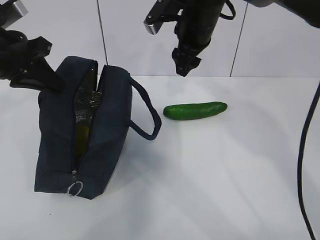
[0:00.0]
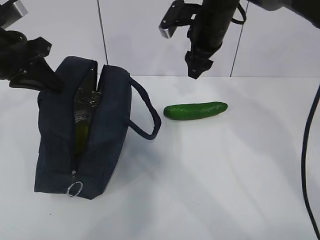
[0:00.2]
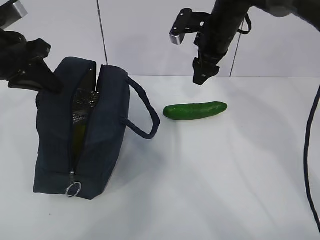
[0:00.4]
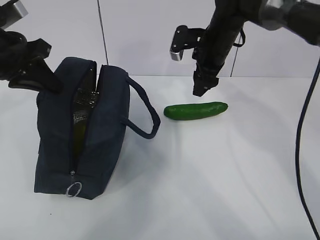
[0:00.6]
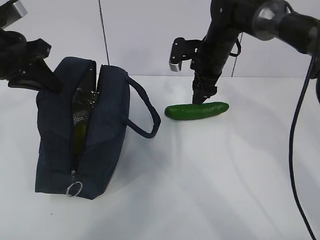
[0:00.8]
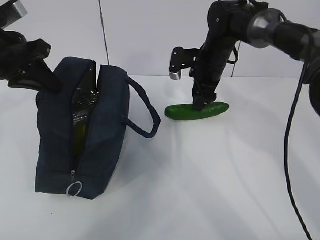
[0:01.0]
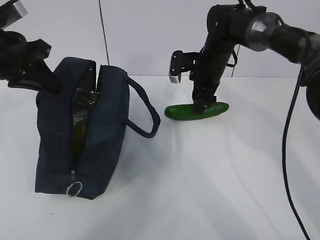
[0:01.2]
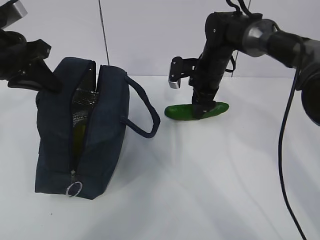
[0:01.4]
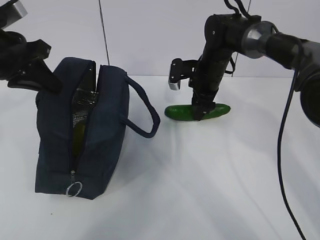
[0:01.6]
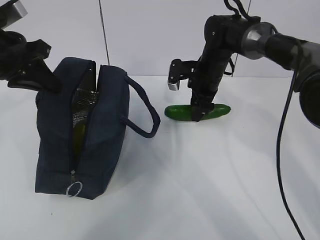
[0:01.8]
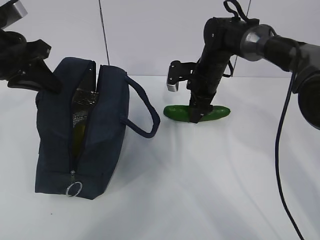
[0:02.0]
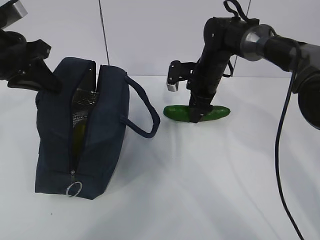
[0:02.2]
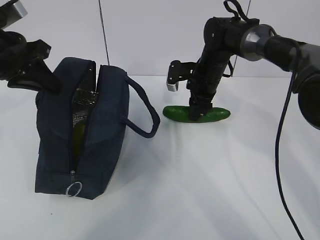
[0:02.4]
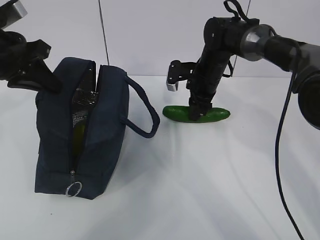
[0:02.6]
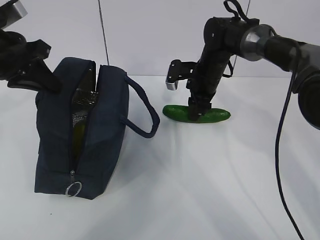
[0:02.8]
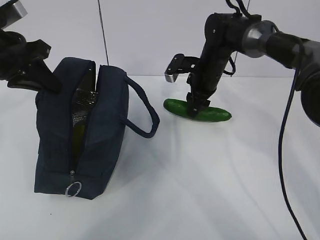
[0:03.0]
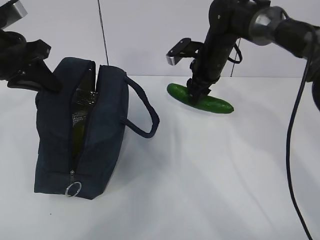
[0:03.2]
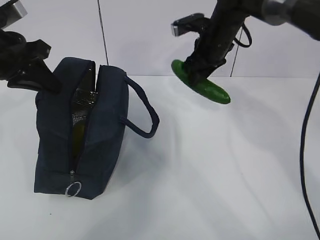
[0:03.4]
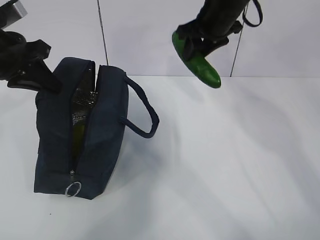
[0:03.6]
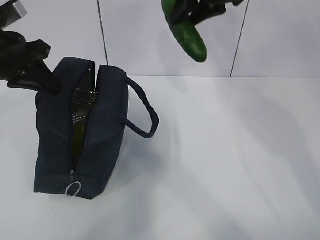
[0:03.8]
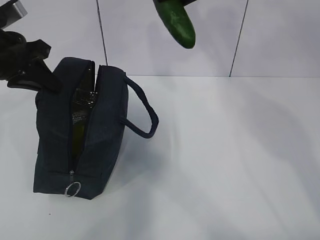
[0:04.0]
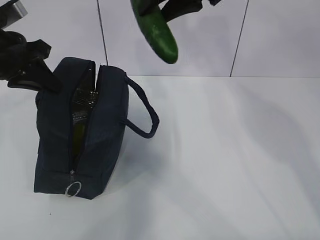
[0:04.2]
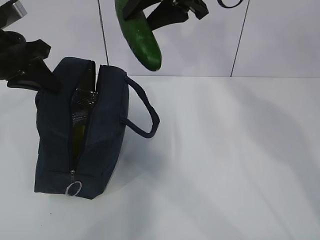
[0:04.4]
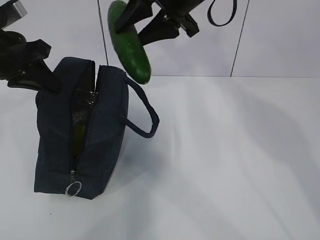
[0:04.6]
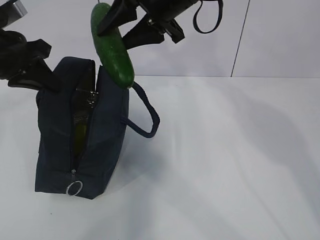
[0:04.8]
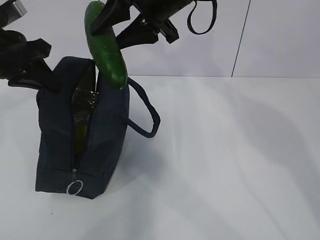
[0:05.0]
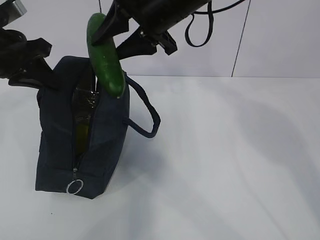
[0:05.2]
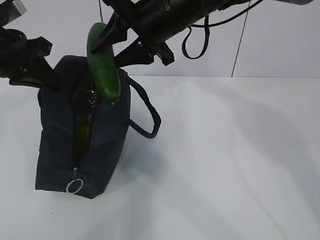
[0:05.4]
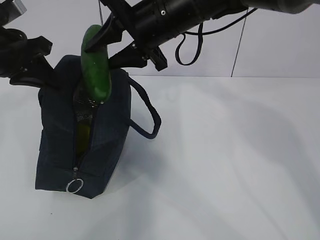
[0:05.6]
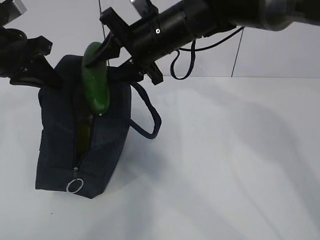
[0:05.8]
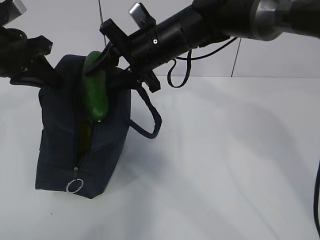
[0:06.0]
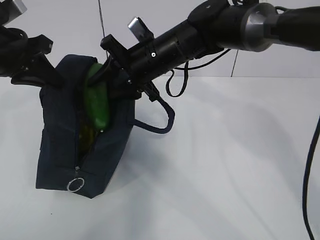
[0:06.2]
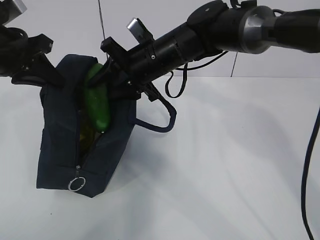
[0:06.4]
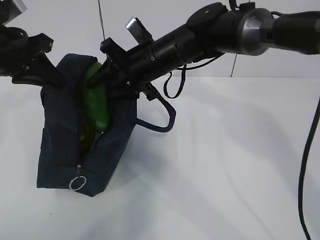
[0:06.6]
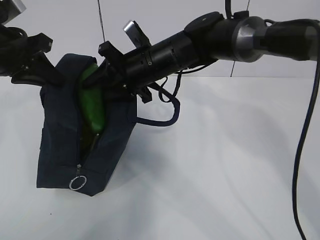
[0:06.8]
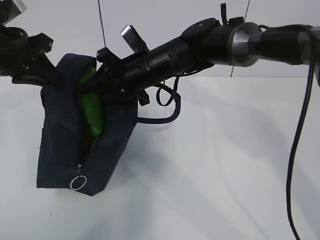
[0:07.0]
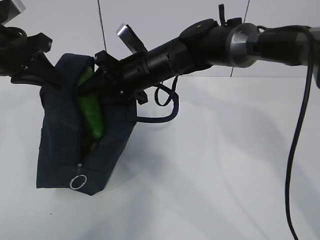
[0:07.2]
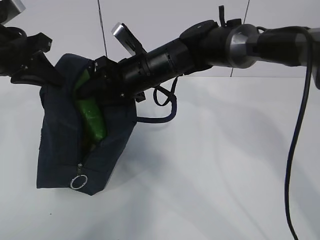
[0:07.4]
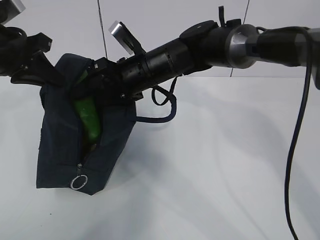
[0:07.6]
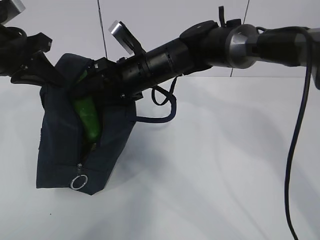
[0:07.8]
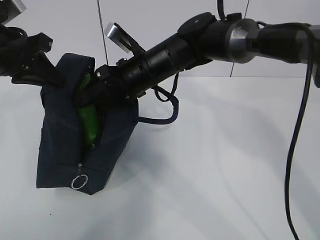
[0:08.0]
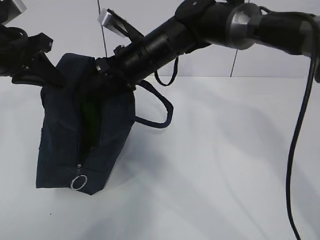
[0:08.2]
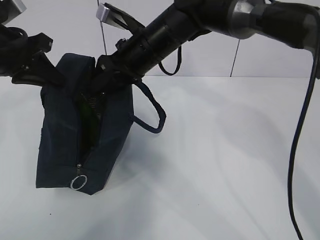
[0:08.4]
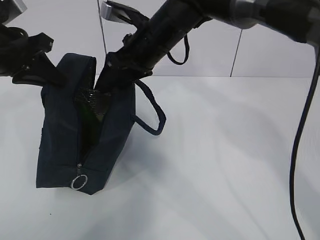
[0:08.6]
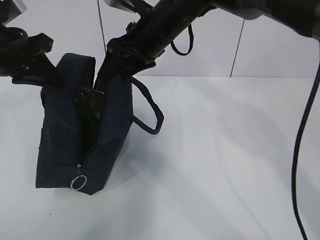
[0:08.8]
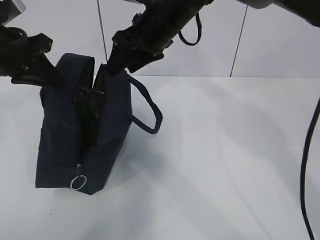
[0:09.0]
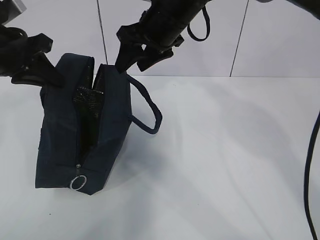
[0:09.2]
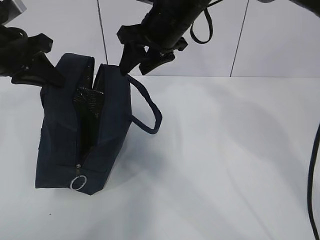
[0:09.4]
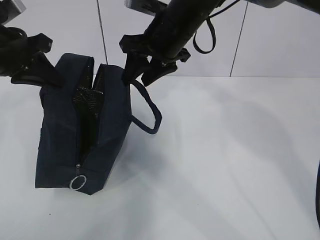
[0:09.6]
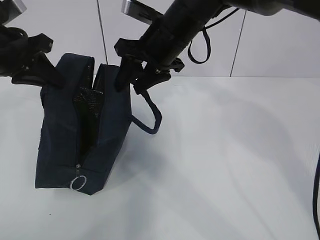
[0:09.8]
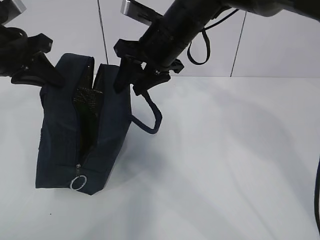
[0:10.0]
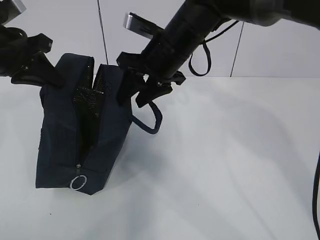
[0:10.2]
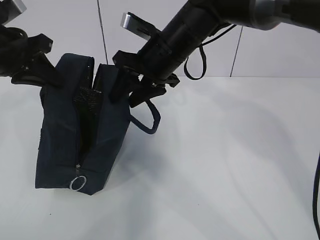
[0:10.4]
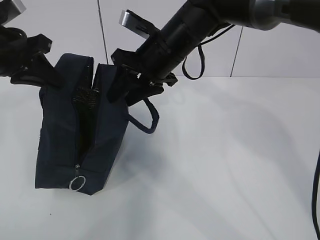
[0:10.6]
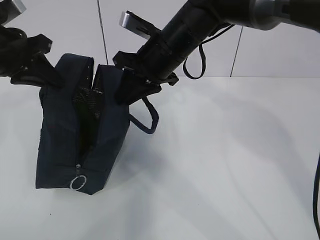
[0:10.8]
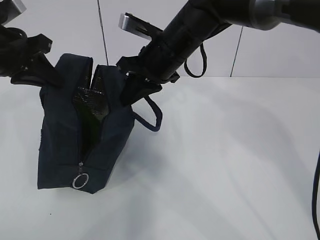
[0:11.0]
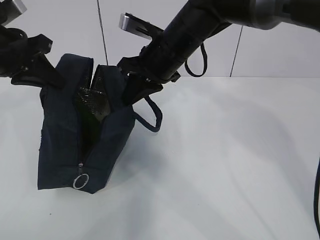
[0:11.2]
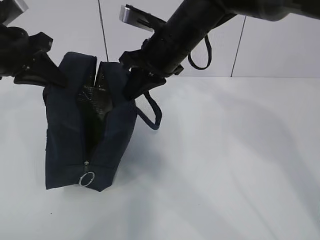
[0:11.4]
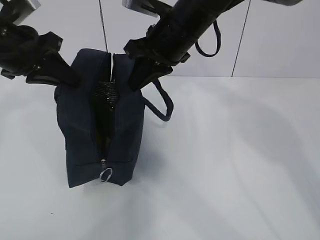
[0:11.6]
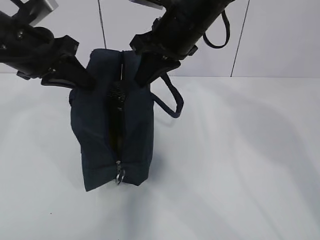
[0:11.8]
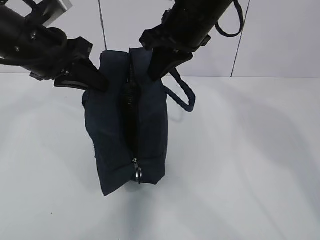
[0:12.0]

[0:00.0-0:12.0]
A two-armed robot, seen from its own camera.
Step, 0:00.2 to 0:02.4: Grab the lunch bag with your right hand.
Step, 0:02.8 to 0:05.0: Move the lunch bag to the right.
0:00.0 to 0:01.6: The right gripper goes some 15 cm downward.
0:01.6 to 0:03.0: The grippers make only small movements.
0:03.0 to 0:04.4: The right gripper heads upward and backward, covering about 25 cm.
0:04.4 to 0:06.0: The right gripper shifts about 15 cm downward and to the left.
0:06.0 to 0:07.6: The right gripper shifts about 5 cm downward.
0:07.6 to 0:09.0: The right gripper moves upward, some 10 cm.
0:10.4 to 0:12.0: The left gripper goes some 5 cm to the right. The right gripper travels upward by approximately 5 cm, and closes its fingers.

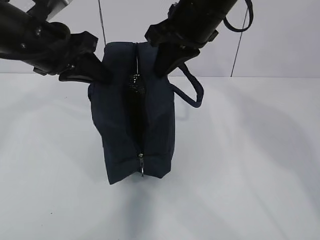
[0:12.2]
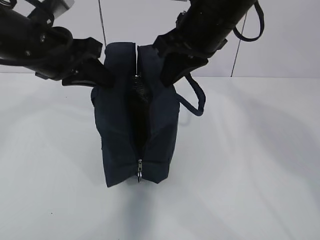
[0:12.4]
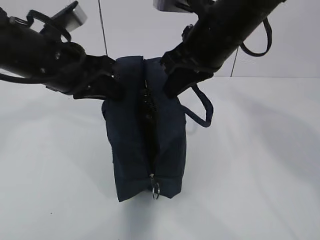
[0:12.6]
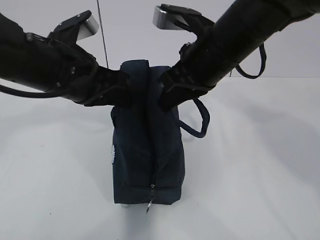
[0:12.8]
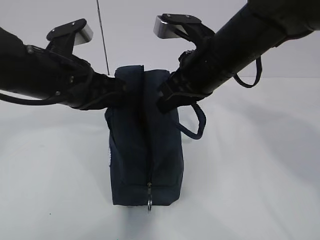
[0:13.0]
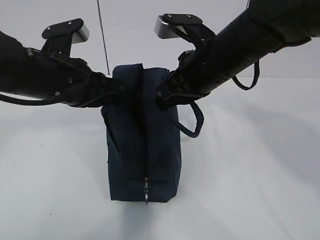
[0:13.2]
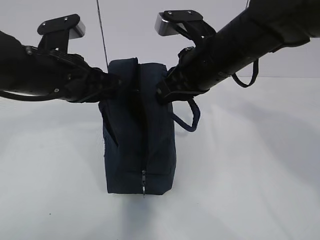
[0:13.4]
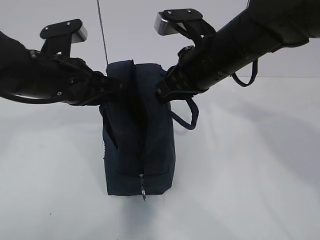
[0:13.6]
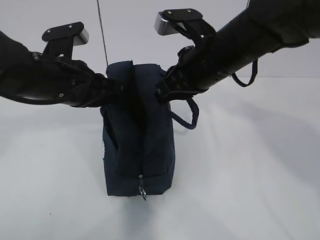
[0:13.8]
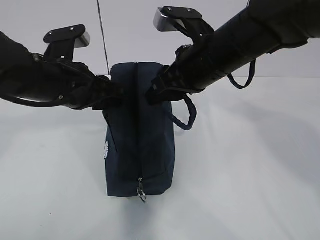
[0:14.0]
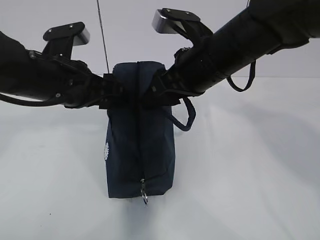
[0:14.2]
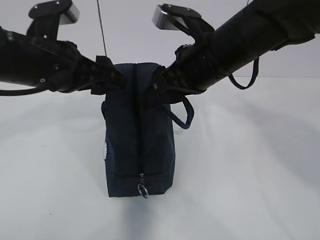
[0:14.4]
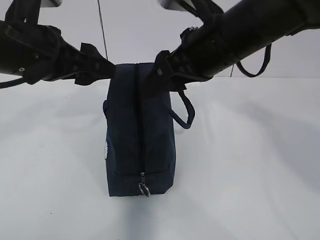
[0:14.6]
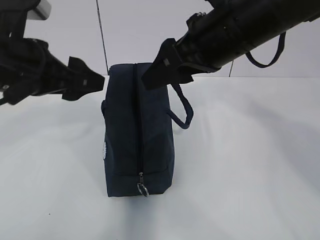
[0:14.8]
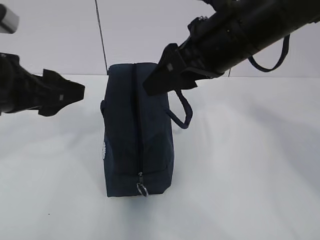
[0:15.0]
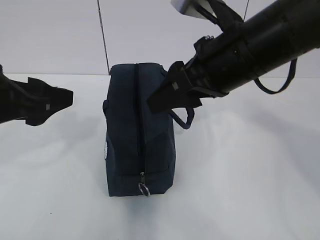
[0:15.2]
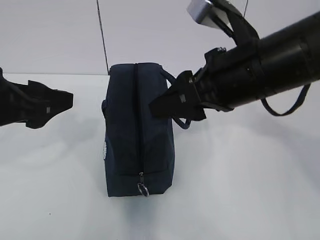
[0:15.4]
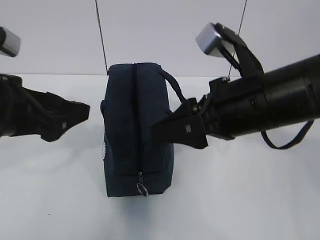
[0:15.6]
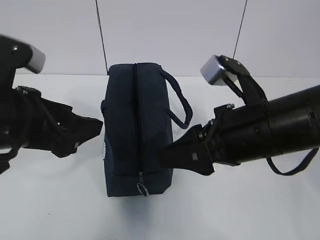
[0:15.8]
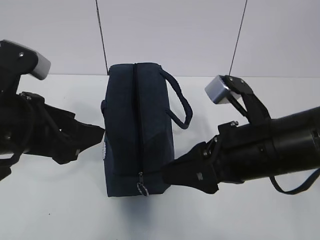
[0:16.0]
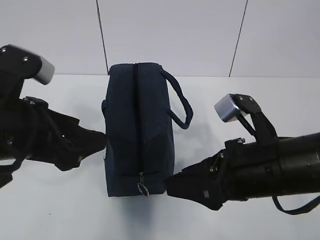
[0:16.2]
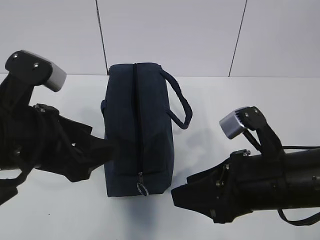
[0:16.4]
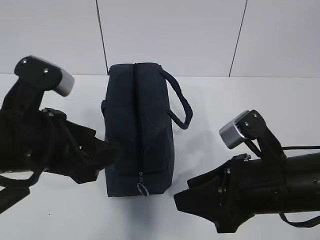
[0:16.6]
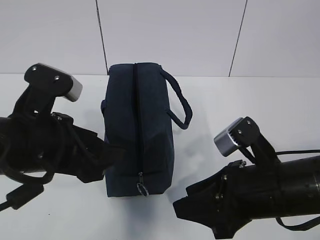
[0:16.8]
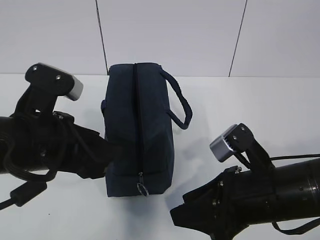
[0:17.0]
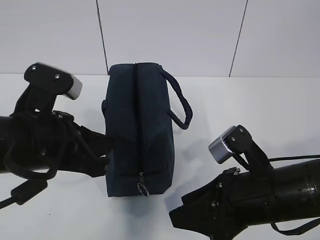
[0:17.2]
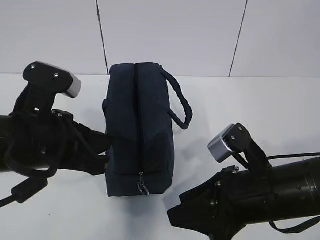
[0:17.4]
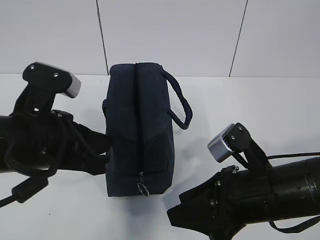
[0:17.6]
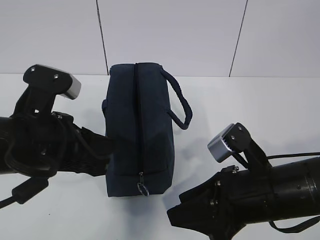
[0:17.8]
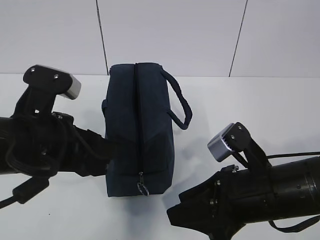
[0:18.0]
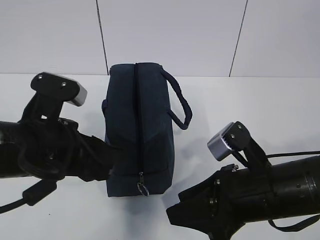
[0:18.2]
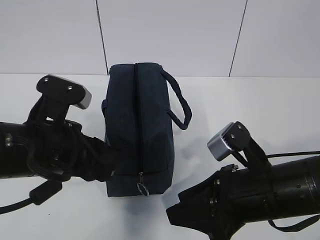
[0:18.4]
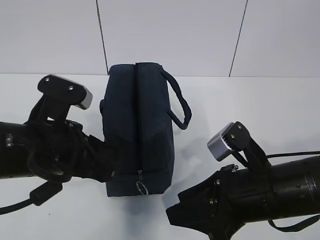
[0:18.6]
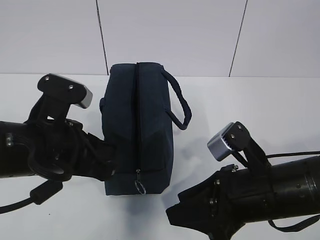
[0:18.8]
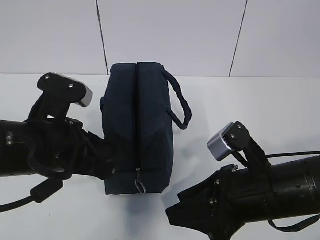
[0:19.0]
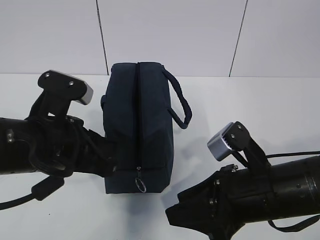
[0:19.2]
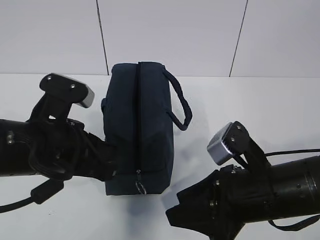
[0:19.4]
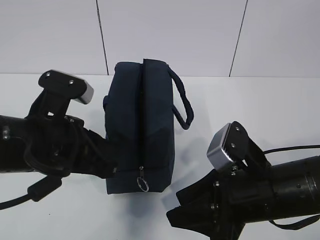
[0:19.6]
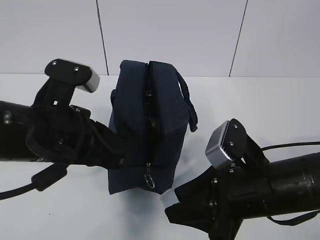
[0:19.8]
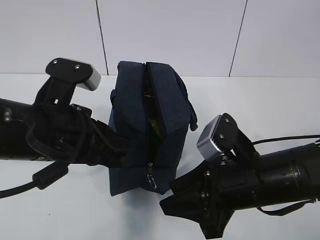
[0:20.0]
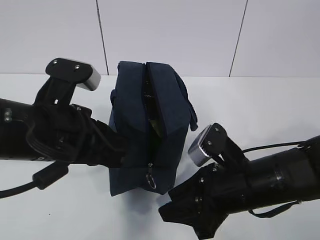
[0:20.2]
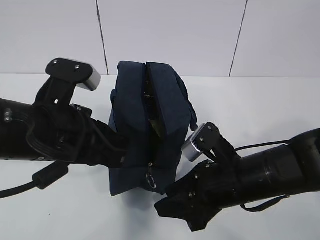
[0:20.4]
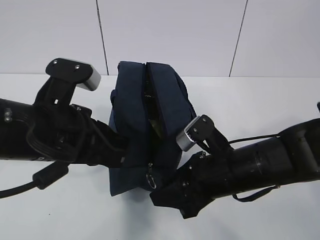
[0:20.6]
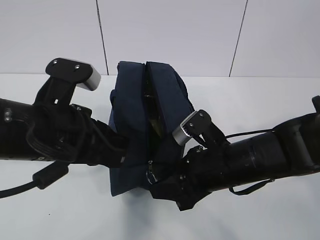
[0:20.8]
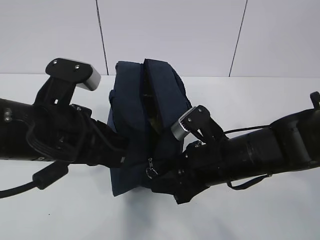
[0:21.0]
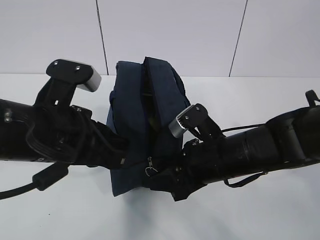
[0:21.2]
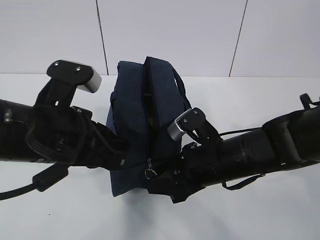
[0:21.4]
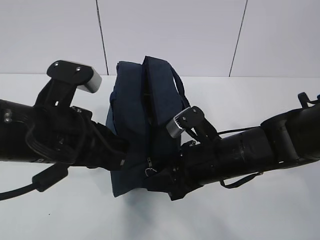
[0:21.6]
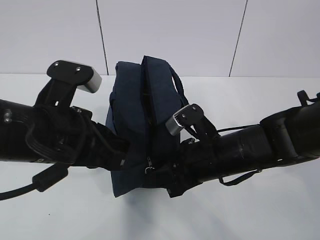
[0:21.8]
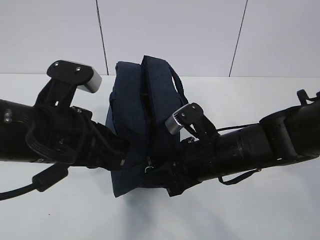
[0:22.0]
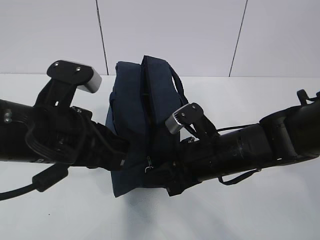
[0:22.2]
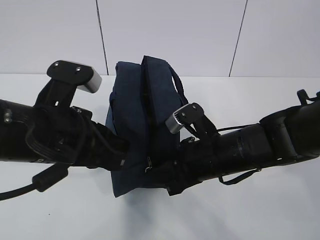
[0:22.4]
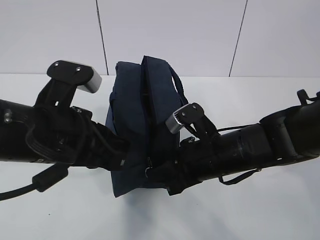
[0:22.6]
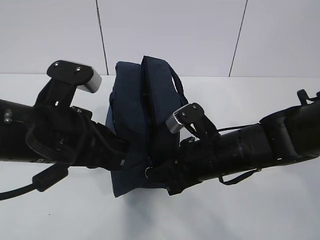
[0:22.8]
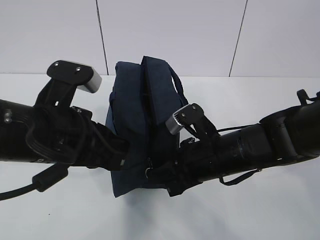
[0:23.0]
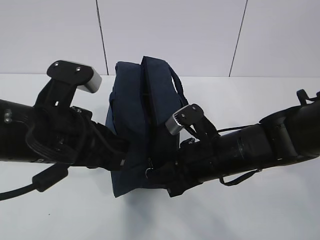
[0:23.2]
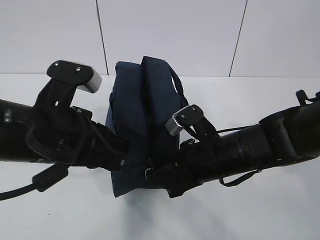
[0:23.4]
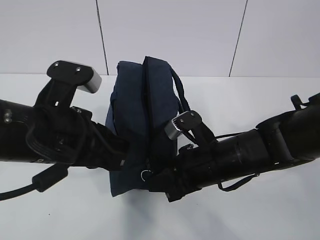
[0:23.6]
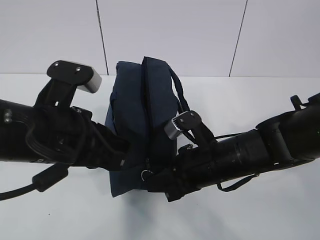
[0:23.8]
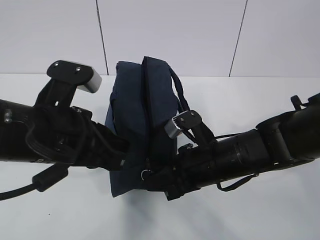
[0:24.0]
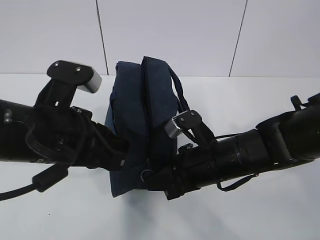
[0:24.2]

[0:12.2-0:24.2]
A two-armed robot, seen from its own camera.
Step, 0:12.2 to 0:21.6: Grab the lunch bag with your left hand.
0:12.2 to 0:13.8: Both grippers move downward, roughly 5 cm.
0:13.8 to 0:15.2: The right gripper heads backward, covering roughly 5 cm, and opens its fingers, while the left gripper moves backward and to the left, about 10 cm, and opens its fingers.
0:15.2 to 0:16.6: The right gripper travels downward and backward by about 15 cm. The left gripper is displaced to the right by some 5 cm.
0:16.6 to 0:18.2: The left gripper closes and opens again.
0:18.2 to 0:19.8: The left gripper closes.
0:19.8 to 0:21.2: The right gripper shifts roughly 5 cm forward.
0:21.2 to 0:22.6: The right gripper closes up.
0:22.6 to 0:24.2: Neither gripper changes place.
